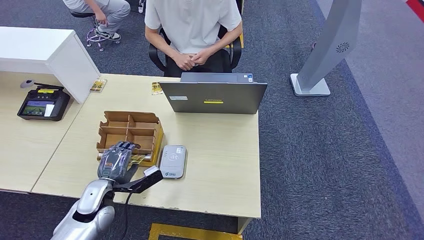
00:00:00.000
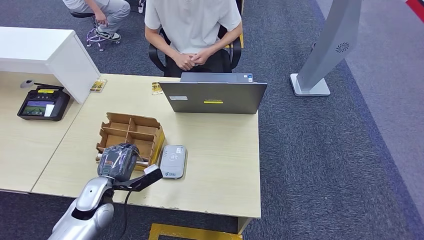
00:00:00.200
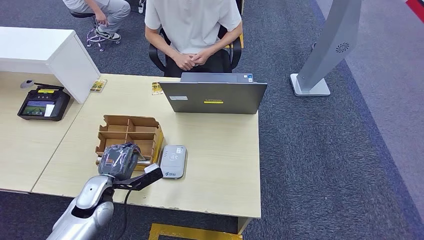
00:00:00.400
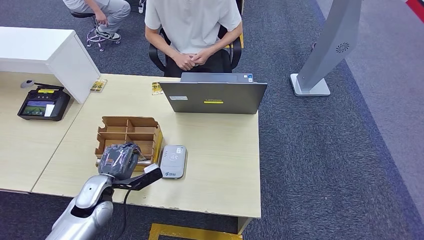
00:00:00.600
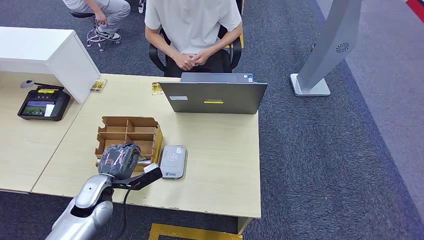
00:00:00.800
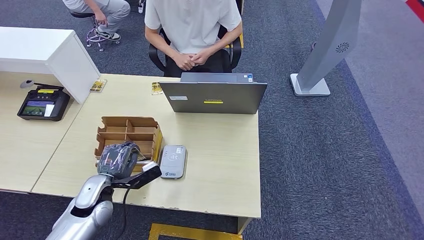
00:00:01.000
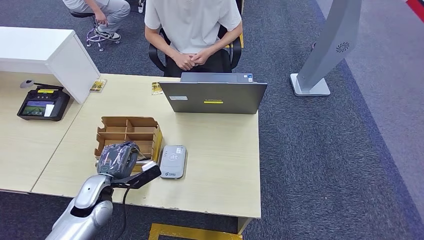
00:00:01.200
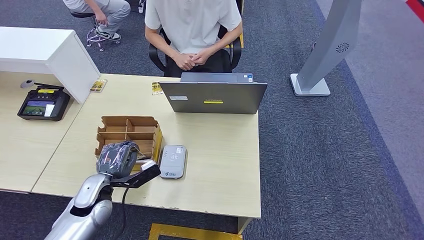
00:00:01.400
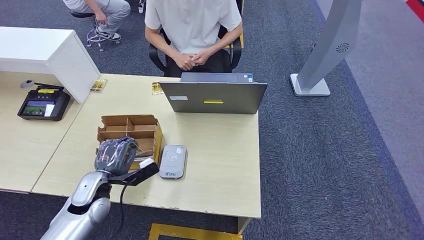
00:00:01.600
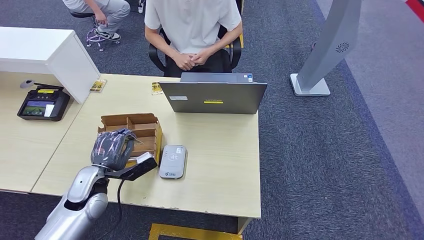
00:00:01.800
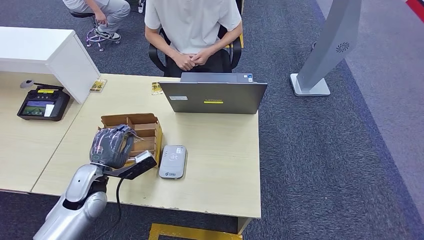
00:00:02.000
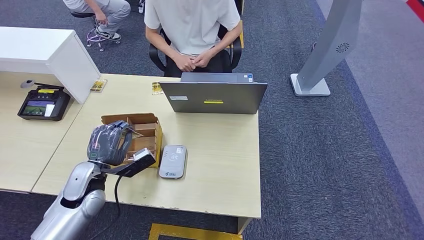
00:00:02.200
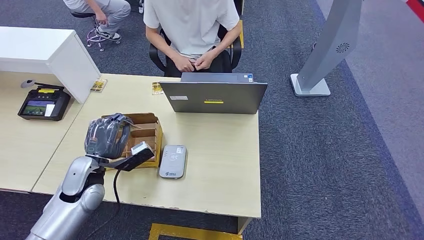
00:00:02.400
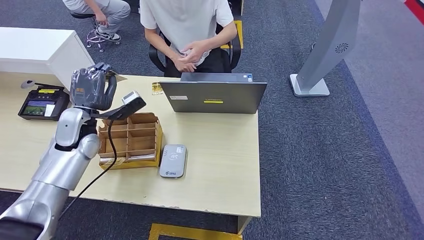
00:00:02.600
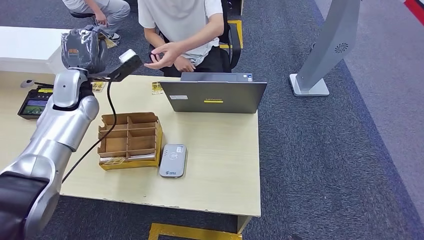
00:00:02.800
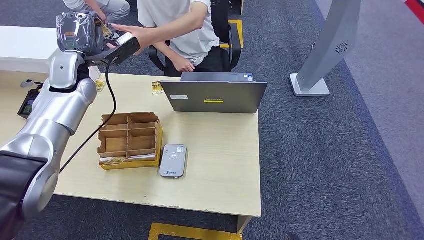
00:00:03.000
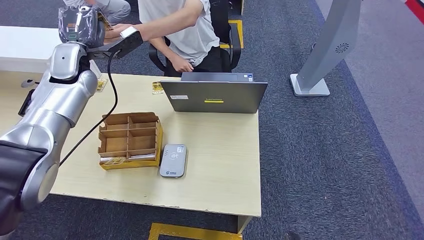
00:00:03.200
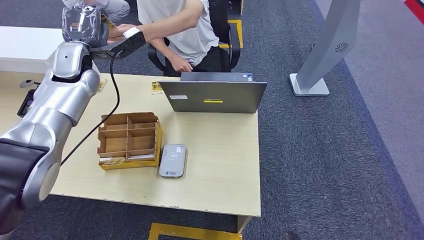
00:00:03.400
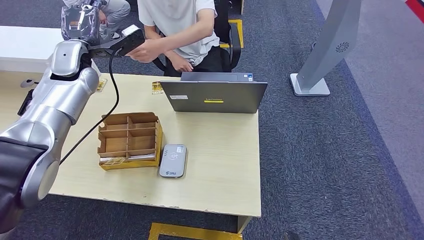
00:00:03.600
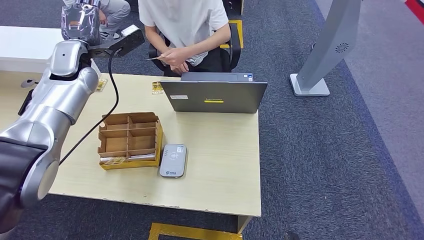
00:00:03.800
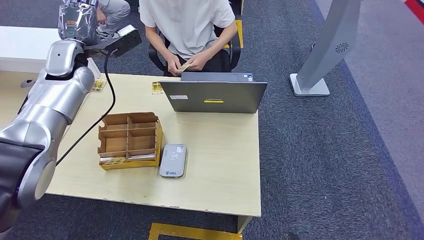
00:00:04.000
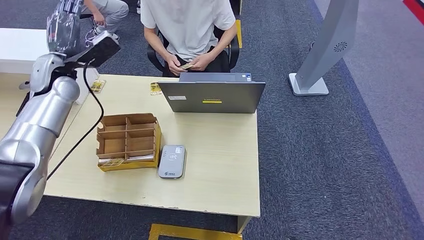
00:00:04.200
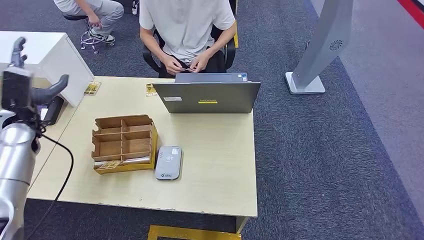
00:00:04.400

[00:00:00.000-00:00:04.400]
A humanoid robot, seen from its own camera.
Step, 00:00:00.000 to 00:00:02.400: Pick up the room key from the key card box.
Step, 00:00:02.600 to 00:00:04.200: Hand the room key to the person.
00:00:00.000 to 00:00:01.400: The hands stay close to where they were, moving slightly.
00:00:01.400 to 00:00:03.000: The left hand goes approximately 30 cm upward and forward; the right hand heads forward, covering approximately 5 cm.
